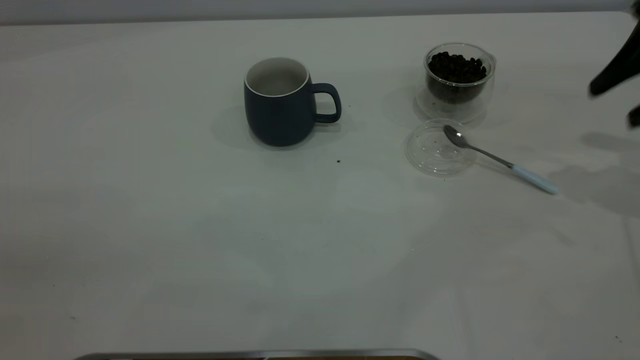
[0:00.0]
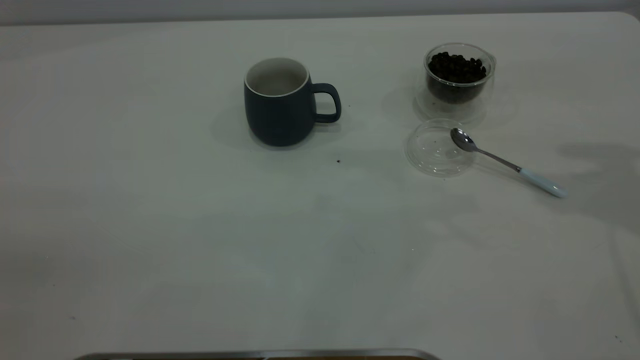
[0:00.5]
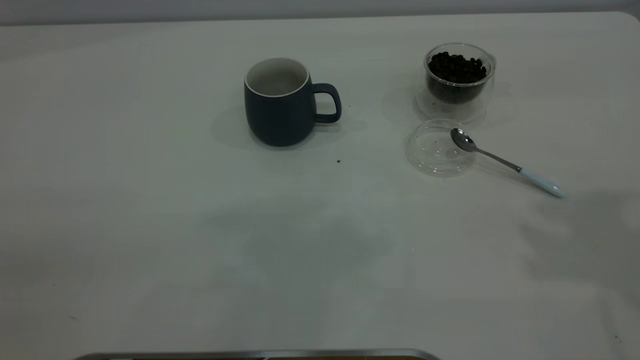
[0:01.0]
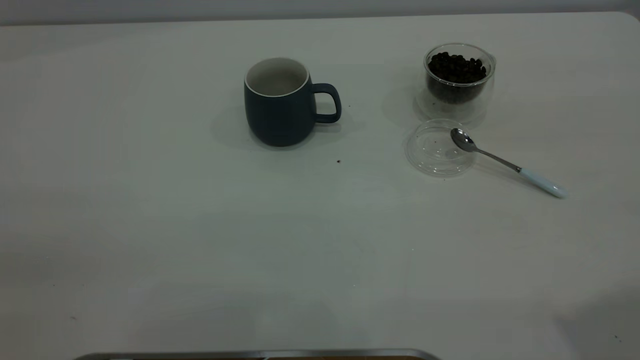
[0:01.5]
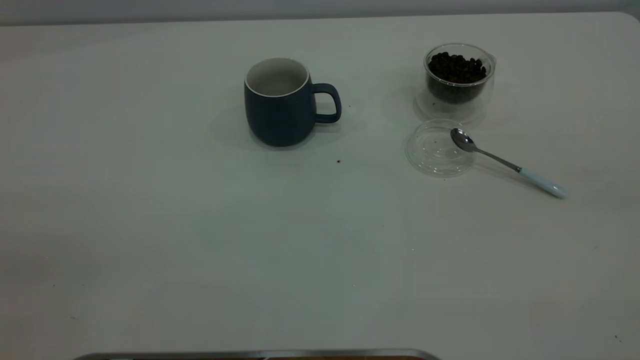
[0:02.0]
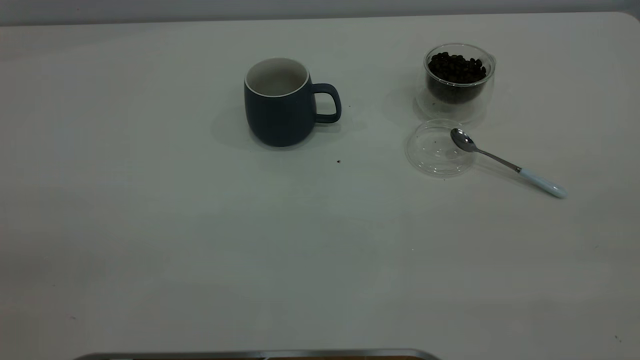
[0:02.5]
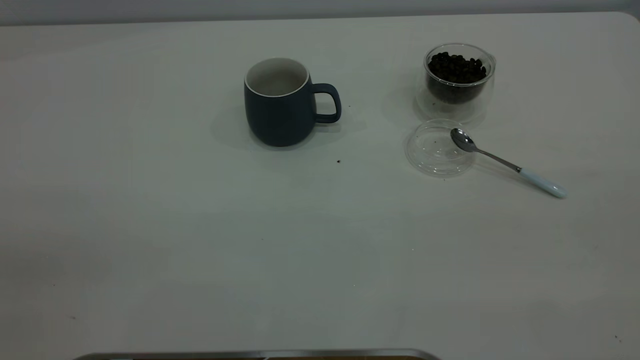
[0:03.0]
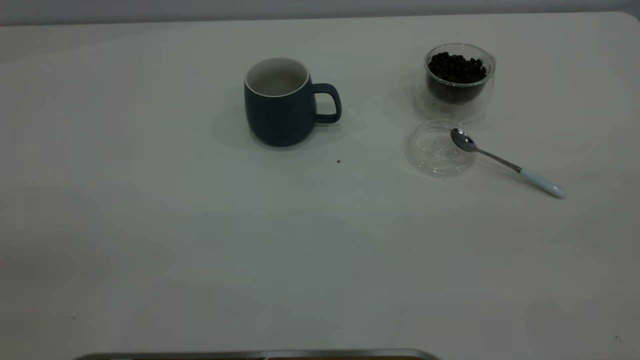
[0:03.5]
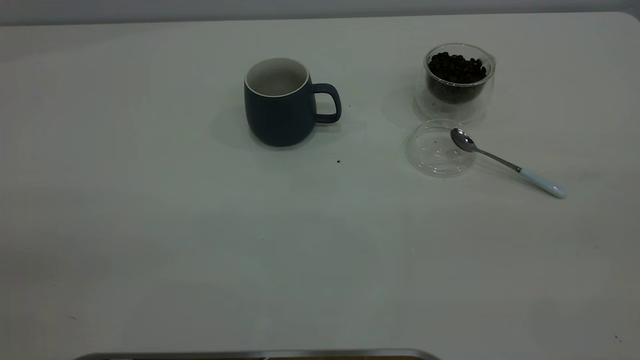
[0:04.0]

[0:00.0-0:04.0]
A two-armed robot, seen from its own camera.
Task of the whole recording: the left gripper place the grey cup in the center of the table, the right gripper take the blue spoon from the cup lid and scoop out the coffee beans from the coffee cup and put them into the grey cup, the right gripper put the spoon back into the cup lid.
0:00.0 to 0:02.0: The right gripper is displaced backward and upward by some 40 cm.
